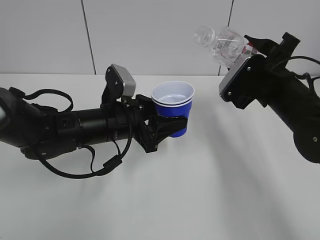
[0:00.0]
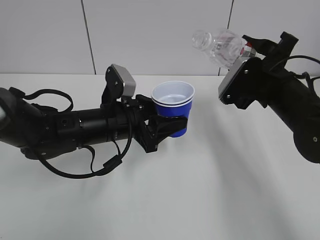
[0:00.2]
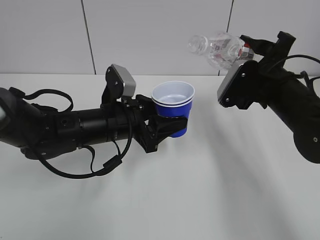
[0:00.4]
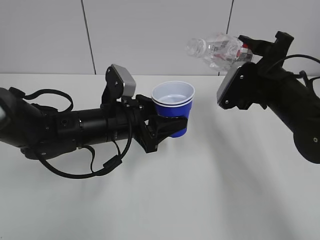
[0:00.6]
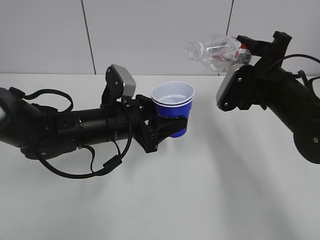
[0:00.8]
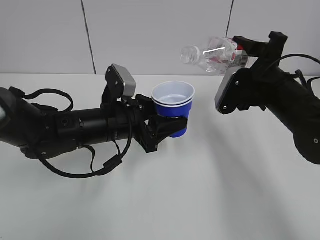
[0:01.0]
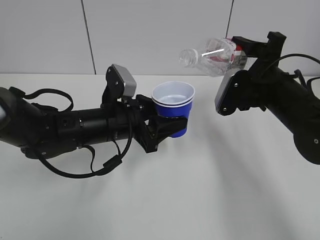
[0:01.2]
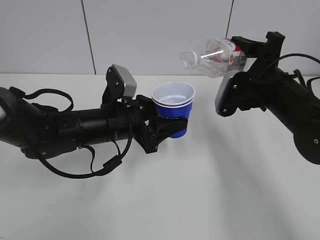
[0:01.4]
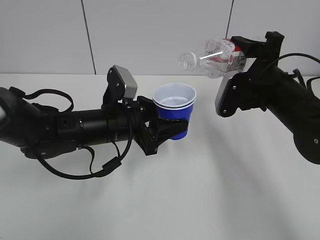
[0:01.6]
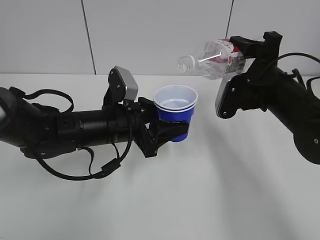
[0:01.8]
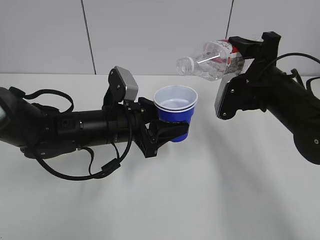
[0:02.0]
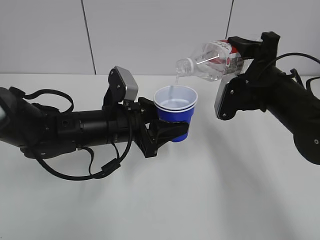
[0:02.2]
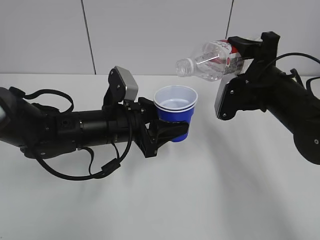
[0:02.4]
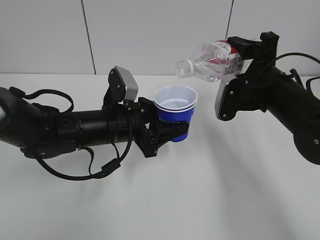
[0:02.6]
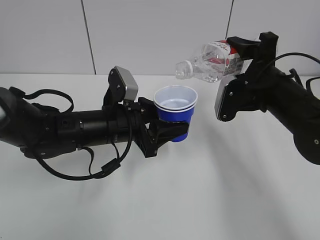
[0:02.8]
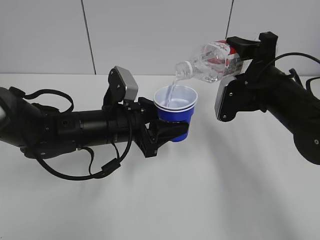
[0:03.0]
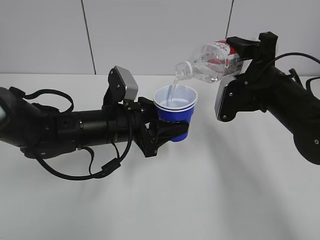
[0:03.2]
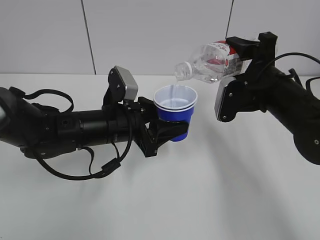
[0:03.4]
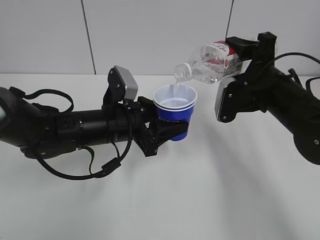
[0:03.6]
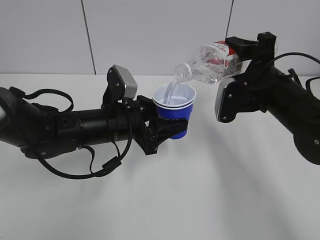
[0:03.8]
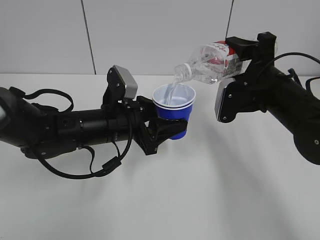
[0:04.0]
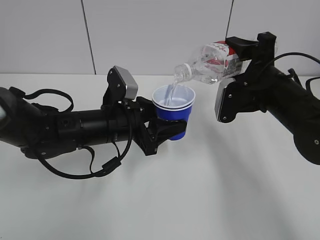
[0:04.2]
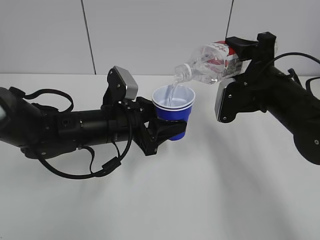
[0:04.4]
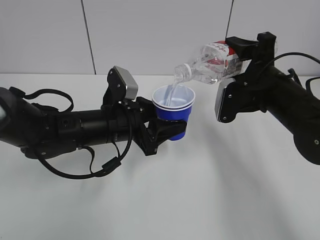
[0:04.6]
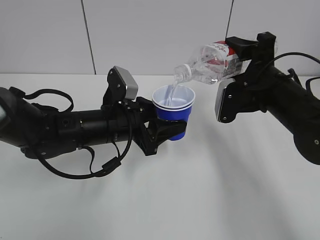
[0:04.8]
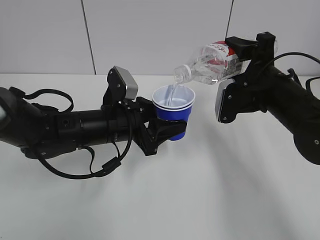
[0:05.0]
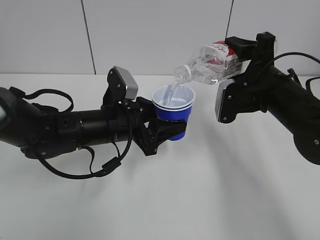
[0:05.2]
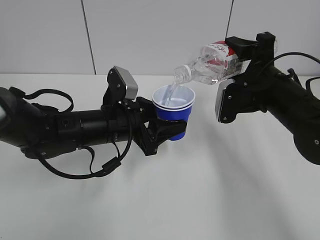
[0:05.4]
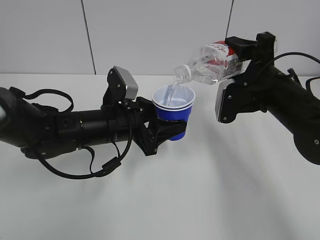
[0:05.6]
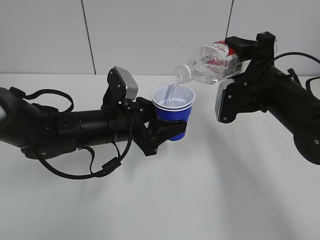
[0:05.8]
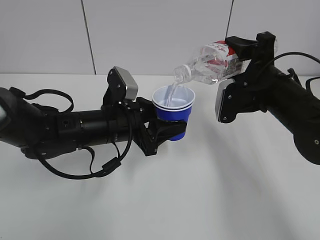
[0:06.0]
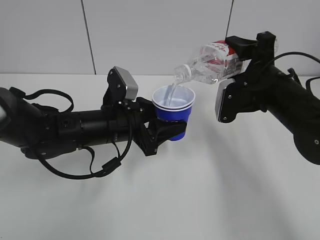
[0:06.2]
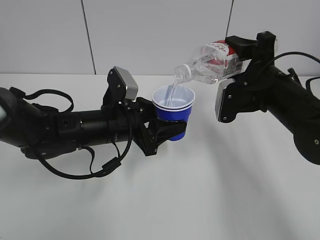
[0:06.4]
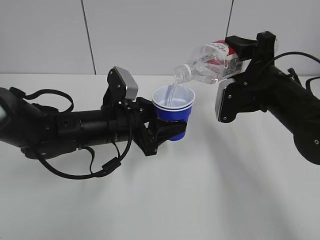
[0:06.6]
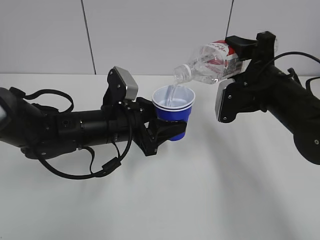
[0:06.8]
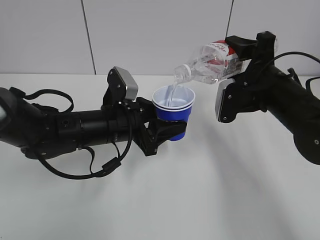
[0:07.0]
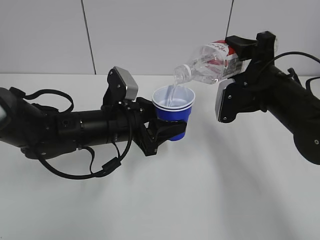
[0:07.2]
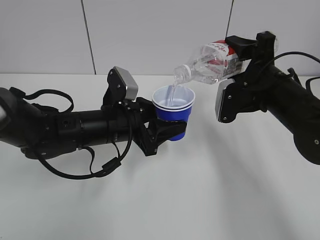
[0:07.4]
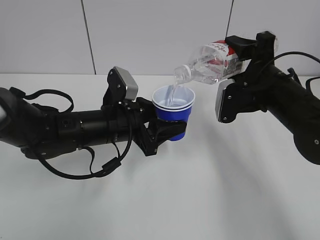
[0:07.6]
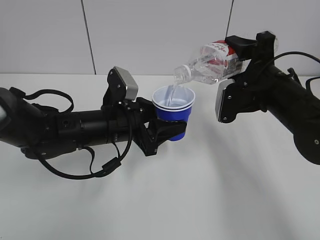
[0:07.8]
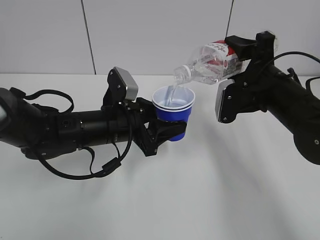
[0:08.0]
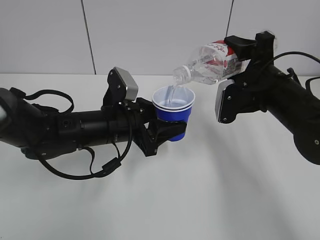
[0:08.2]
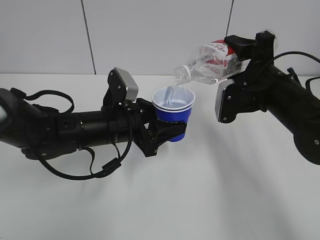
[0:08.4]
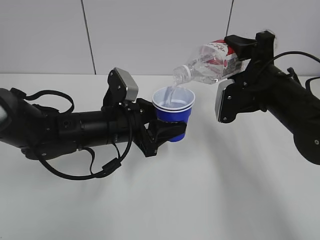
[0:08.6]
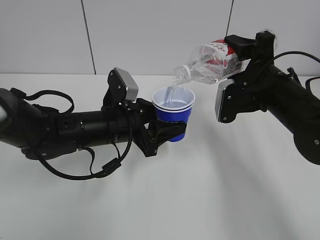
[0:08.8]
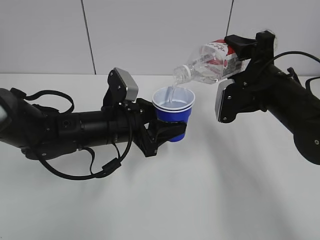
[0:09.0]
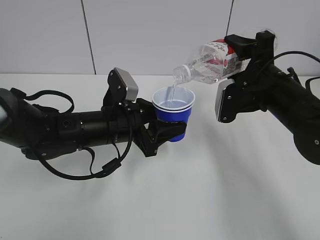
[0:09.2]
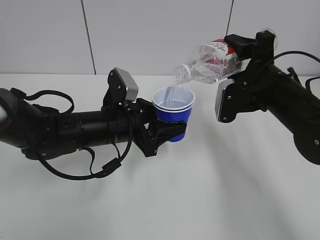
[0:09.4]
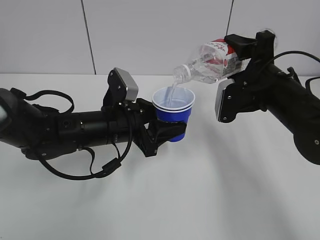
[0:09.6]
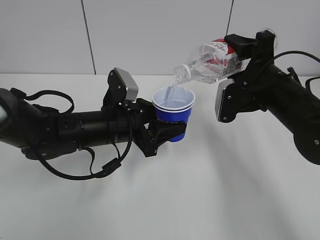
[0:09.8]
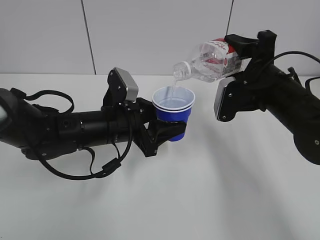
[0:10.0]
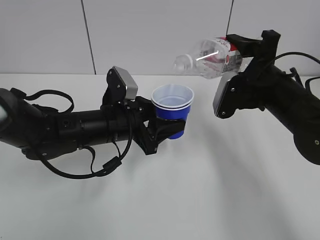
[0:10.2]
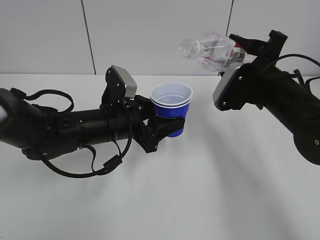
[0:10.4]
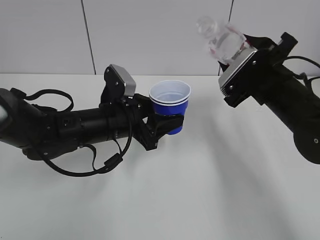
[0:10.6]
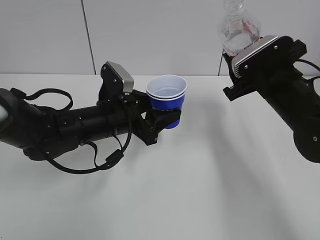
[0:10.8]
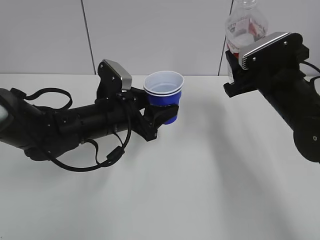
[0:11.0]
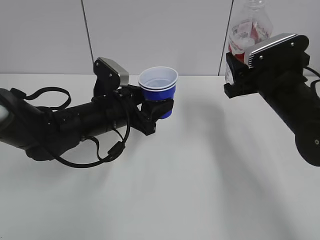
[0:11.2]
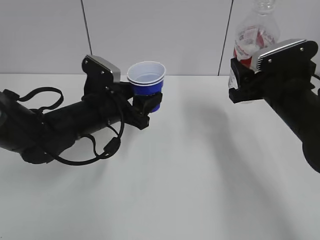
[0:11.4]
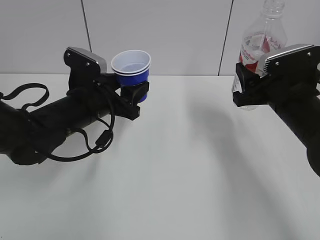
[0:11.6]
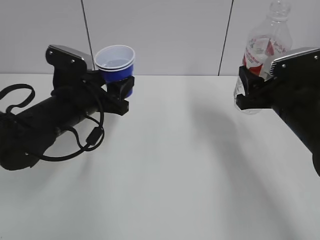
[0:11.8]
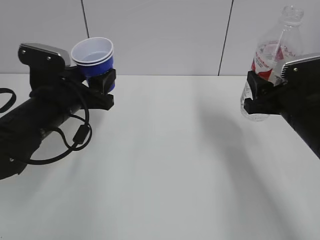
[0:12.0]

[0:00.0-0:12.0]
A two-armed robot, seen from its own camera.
Step, 0:01.0 to 0:10.2: Fill water with the left hand.
Step, 0:01.0 to 0:10.2: Pour water with the right hand.
Step, 0:10.4 to 0:11.0: Collect water with the right hand.
0:01.6 to 0:03.0: The grippers stay close to where they were, moving slightly.
0:03.0 to 0:09.0: Both grippers stay put.
0:10.4 to 0:12.0: The left gripper travels to the left by roughly 5 cm, while the right gripper shifts by roughly 5 cm.

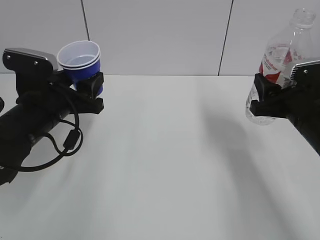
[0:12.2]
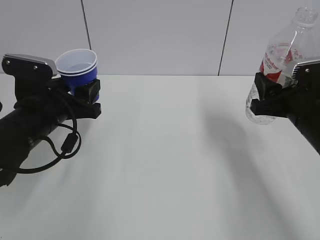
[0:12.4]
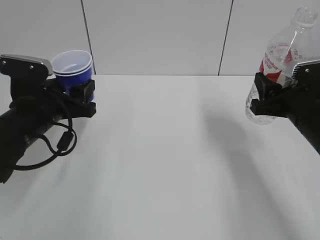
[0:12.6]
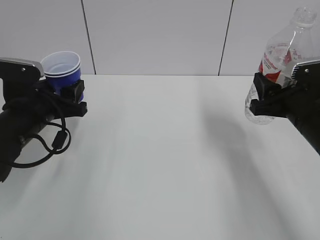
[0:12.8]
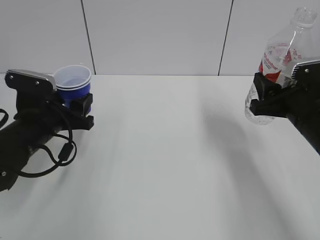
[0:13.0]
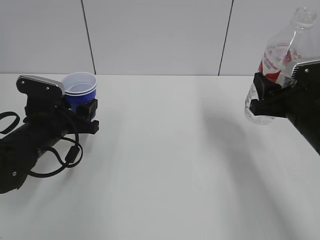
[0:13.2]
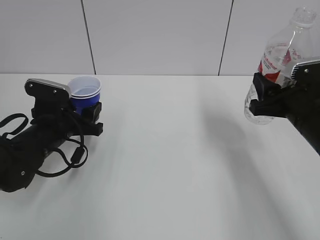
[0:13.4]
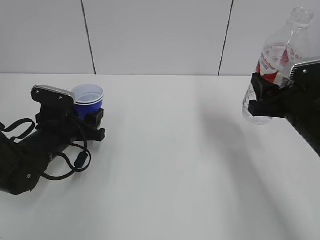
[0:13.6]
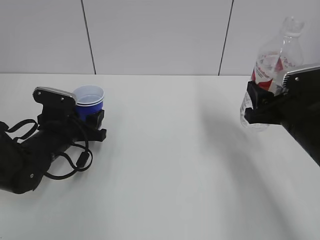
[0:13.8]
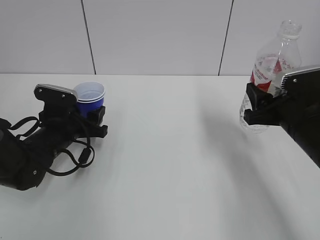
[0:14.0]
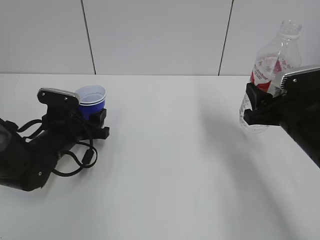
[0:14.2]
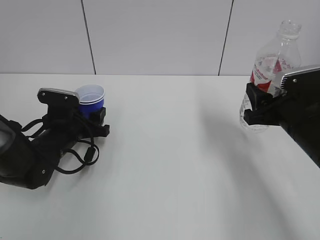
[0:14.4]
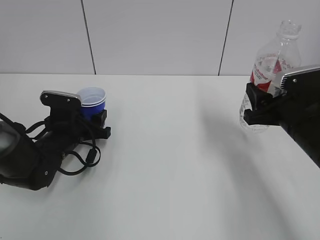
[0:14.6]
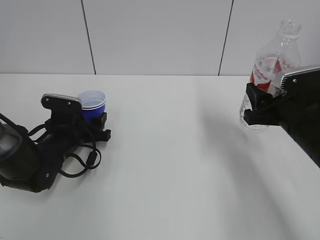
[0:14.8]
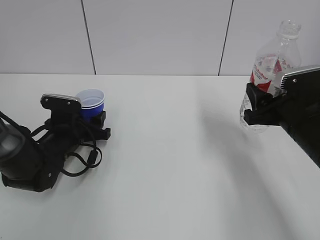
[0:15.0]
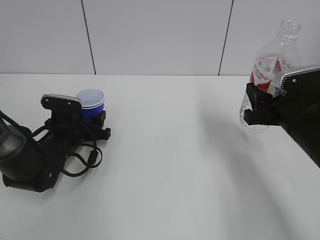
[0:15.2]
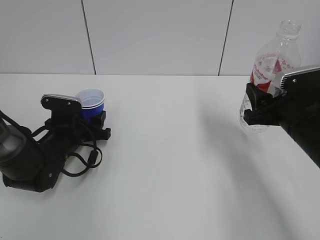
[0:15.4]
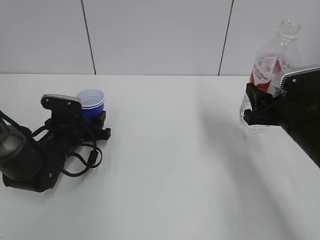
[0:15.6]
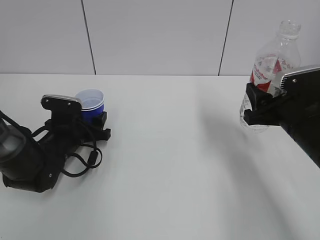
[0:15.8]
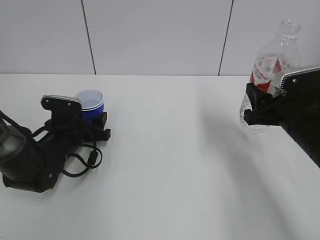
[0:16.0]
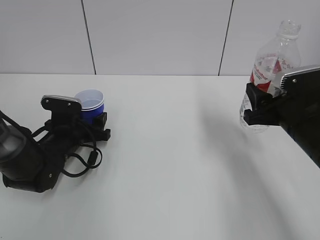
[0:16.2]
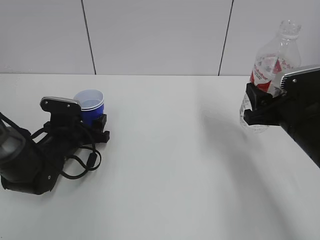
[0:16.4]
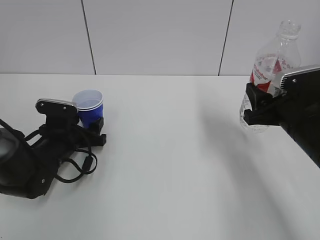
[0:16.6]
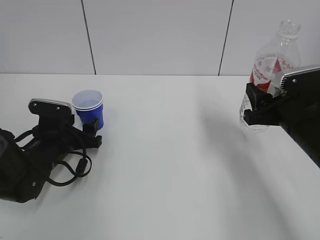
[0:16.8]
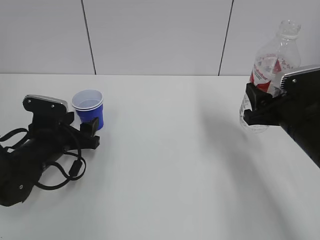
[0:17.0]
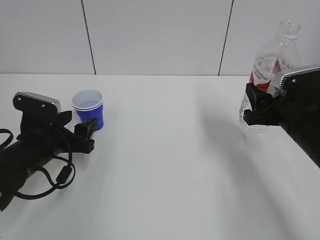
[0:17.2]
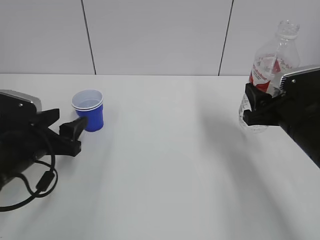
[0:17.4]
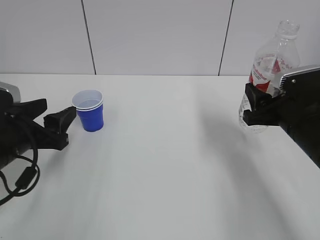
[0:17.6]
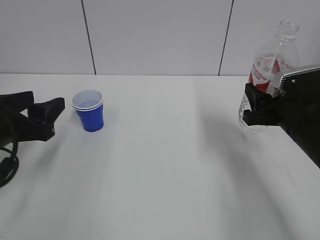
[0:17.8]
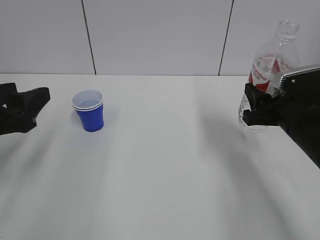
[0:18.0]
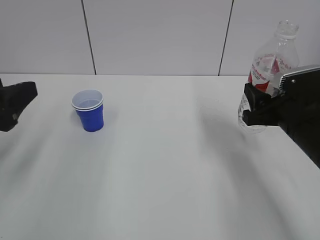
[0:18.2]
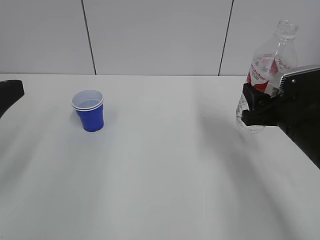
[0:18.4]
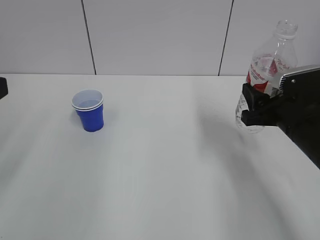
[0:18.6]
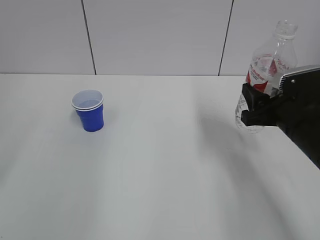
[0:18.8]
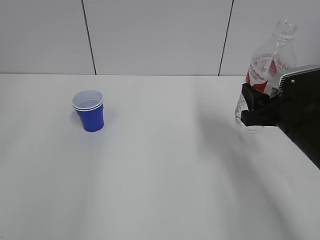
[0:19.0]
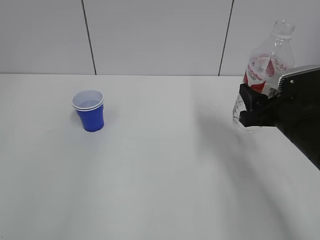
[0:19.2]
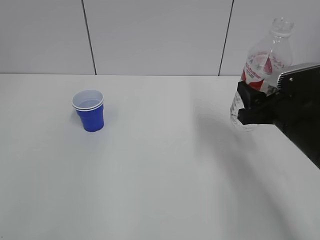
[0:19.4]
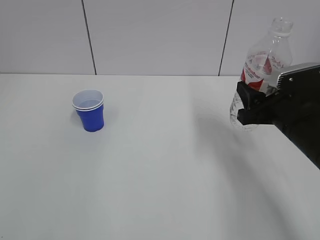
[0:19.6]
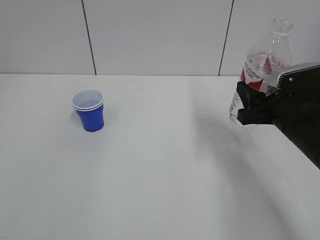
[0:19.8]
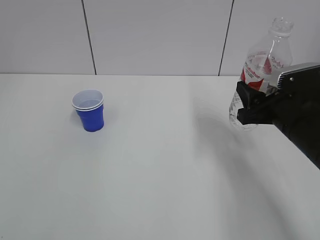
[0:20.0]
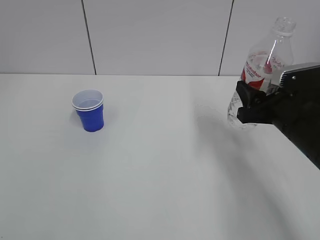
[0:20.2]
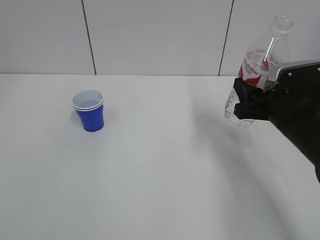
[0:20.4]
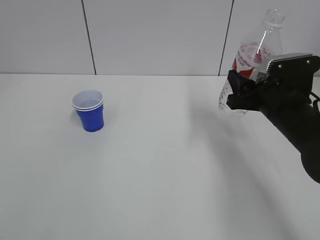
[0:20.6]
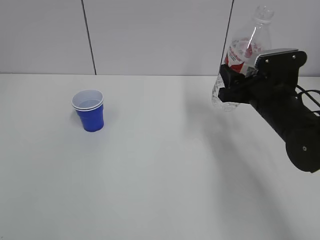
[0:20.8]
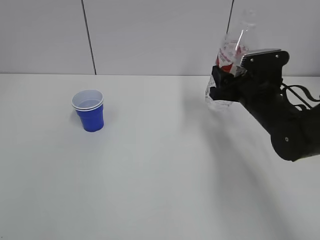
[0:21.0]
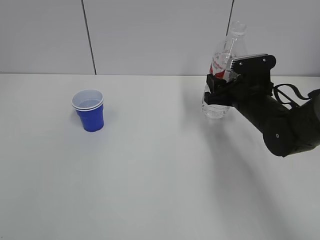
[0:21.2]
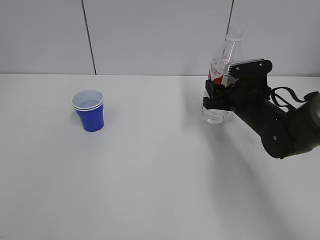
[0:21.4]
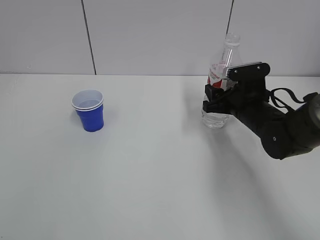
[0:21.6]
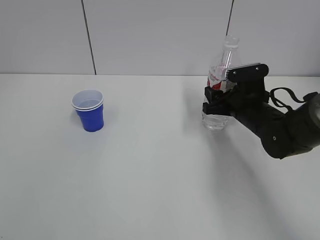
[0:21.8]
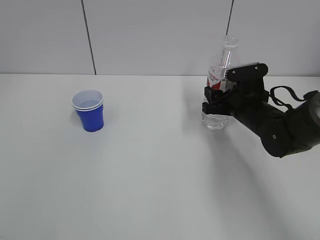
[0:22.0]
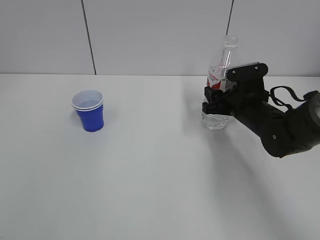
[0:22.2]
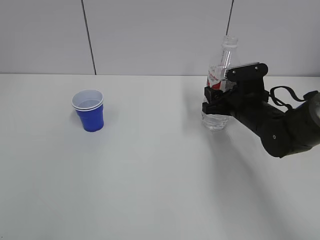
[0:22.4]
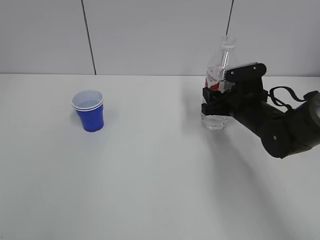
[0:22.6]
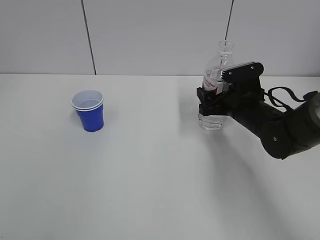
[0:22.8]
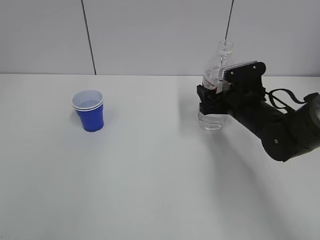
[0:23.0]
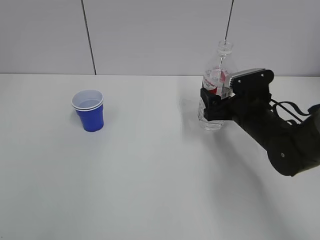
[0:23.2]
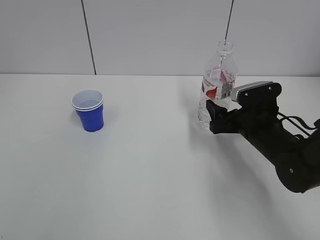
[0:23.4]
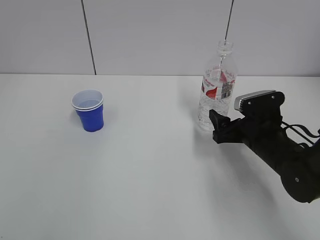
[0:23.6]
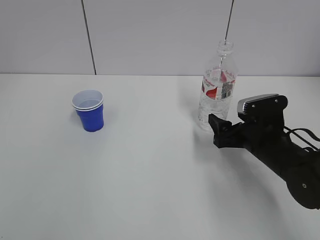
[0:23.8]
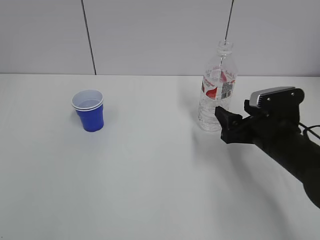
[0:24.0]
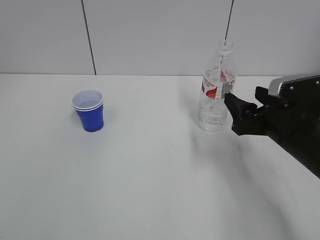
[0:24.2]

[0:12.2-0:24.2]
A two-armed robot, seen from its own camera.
Step, 0:12.2 to 0:16.4: Place the paper cup with the left hand.
Step, 0:16.6 to 0:23.2: Place the water bottle with the right hand.
0:12.2 to 0:13.8: The left gripper is displaced downward by roughly 10 cm.
0:13.8 to 0:15.2: The grippers stay close to where they were, moving slightly.
0:15.2 to 0:16.6: The left gripper opens its fingers.
0:16.6 to 0:18.2: The left gripper shifts roughly 25 cm upward and backward.
0:18.2 to 0:19.8: The left gripper heads backward, covering some 20 cm, and closes up.
0:19.8 to 0:21.2: The right gripper goes approximately 10 cm forward.
0:21.2 to 0:22.6: The grippers make only small movements.
0:22.6 to 0:24.2: The right gripper is displaced backward by about 10 cm, and opens.
